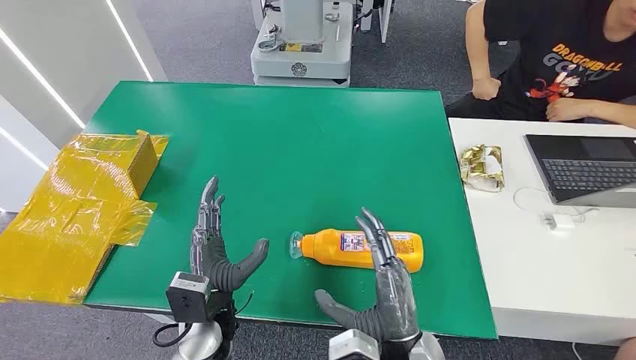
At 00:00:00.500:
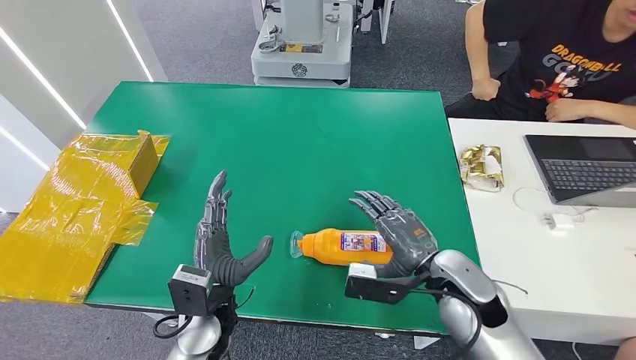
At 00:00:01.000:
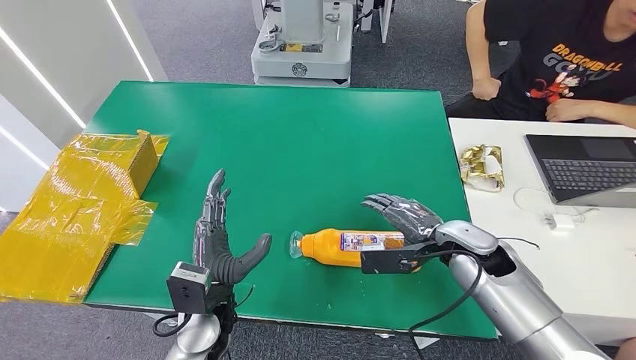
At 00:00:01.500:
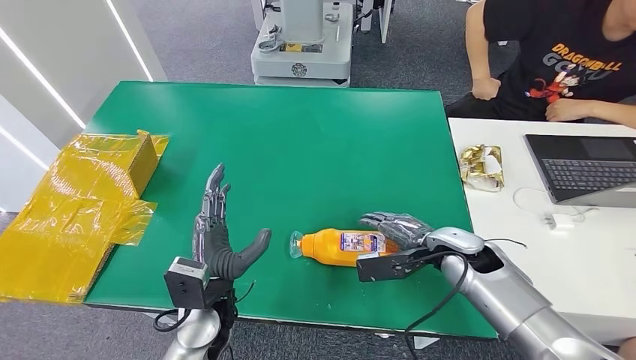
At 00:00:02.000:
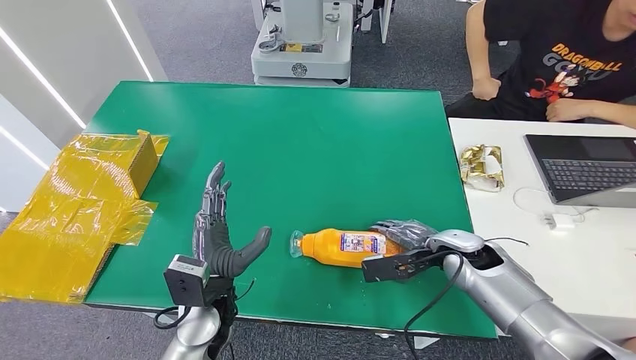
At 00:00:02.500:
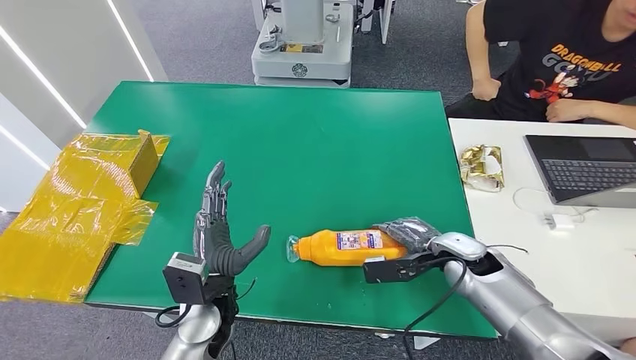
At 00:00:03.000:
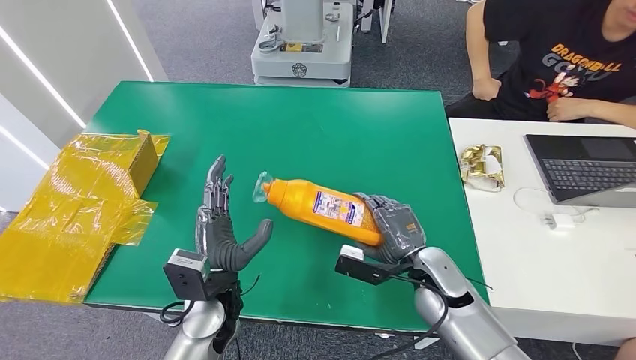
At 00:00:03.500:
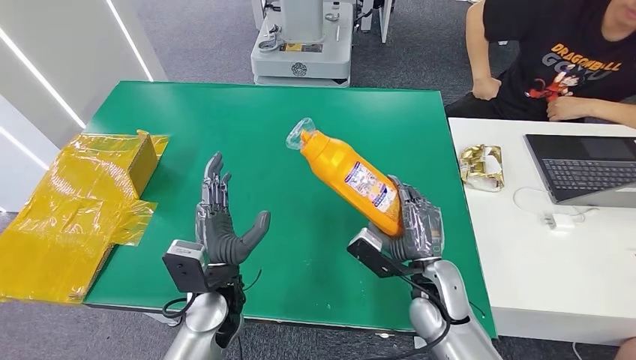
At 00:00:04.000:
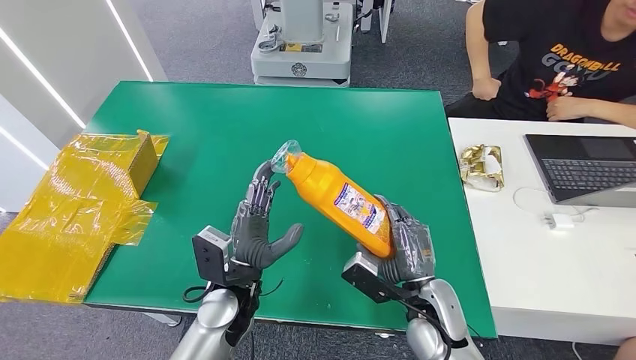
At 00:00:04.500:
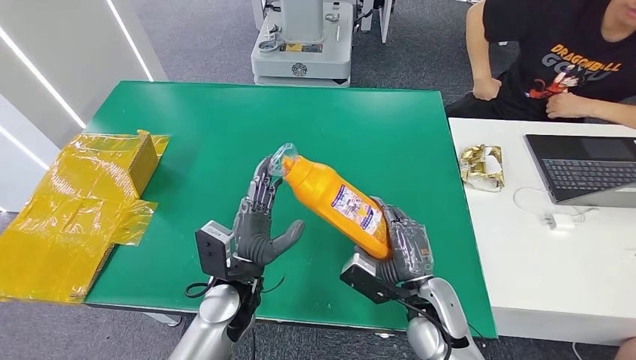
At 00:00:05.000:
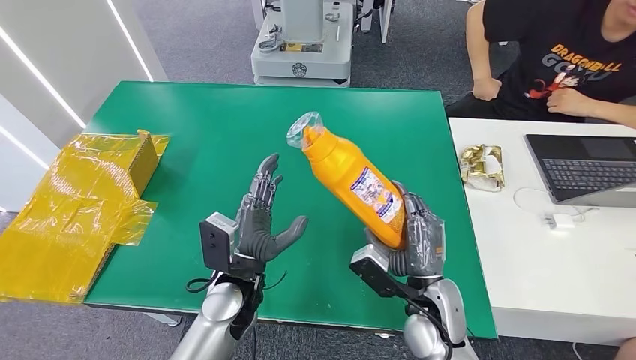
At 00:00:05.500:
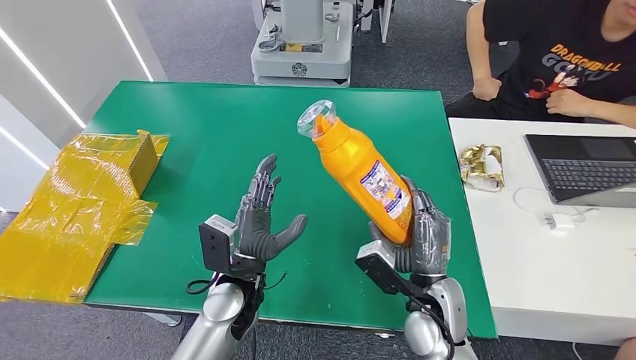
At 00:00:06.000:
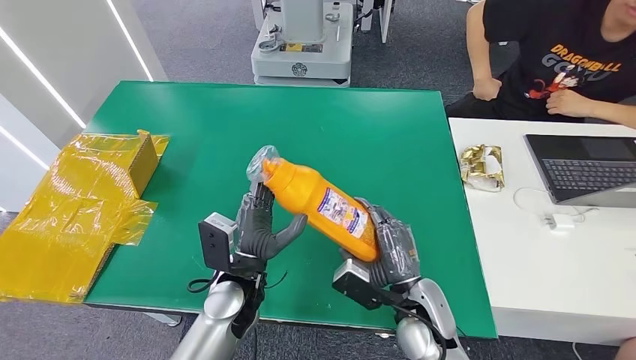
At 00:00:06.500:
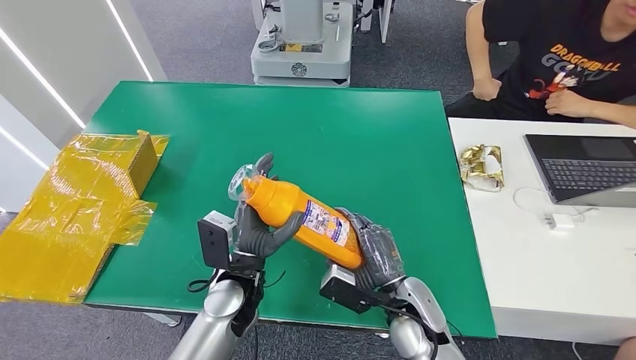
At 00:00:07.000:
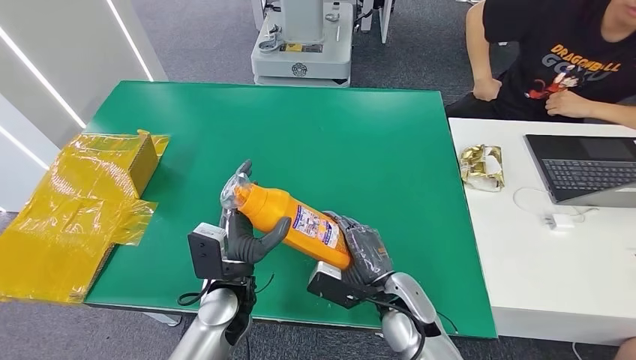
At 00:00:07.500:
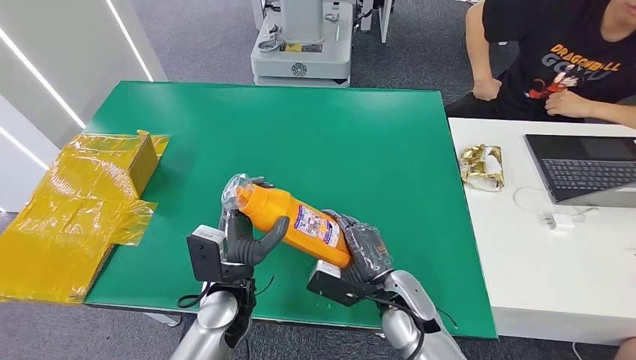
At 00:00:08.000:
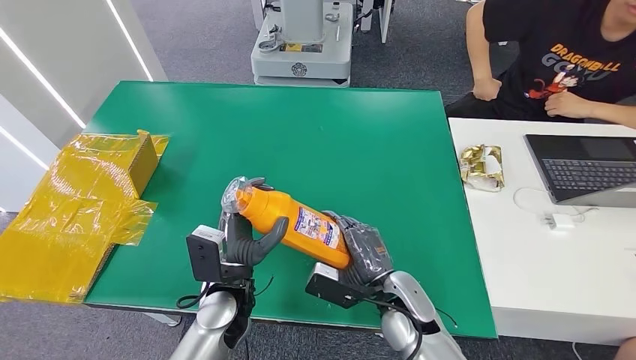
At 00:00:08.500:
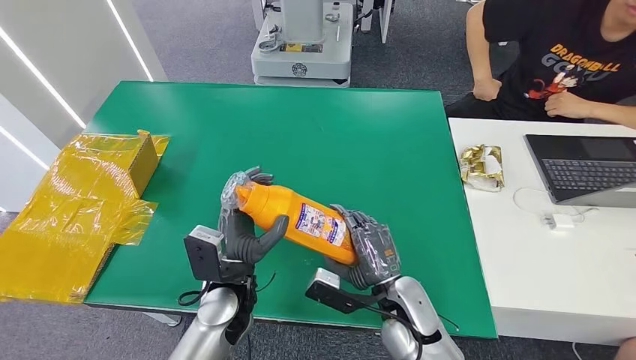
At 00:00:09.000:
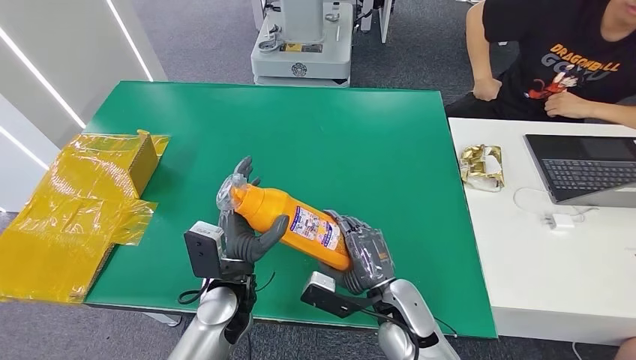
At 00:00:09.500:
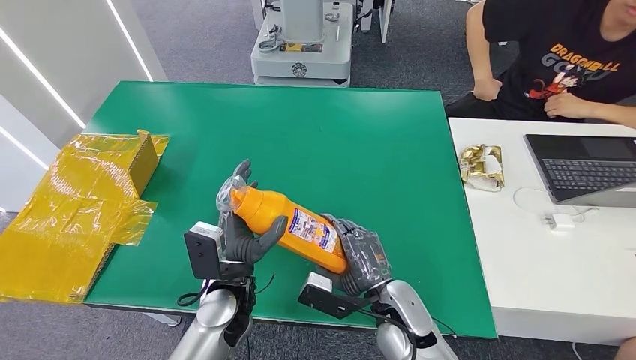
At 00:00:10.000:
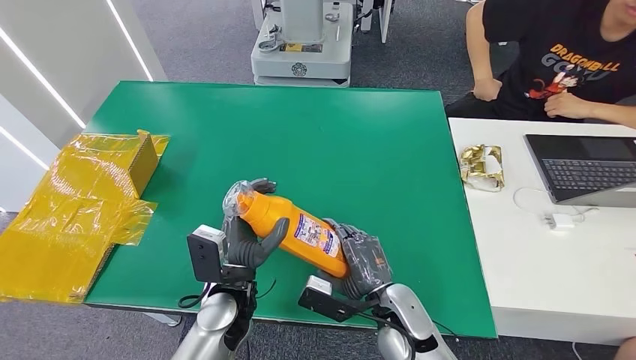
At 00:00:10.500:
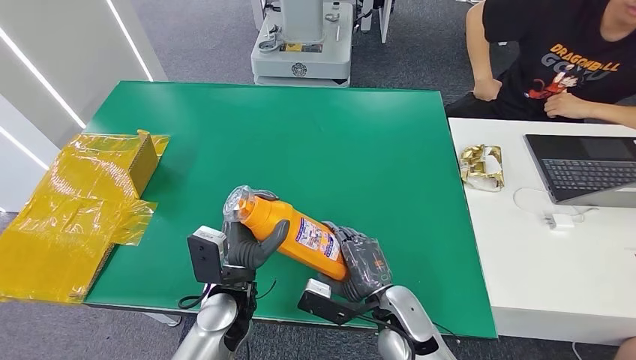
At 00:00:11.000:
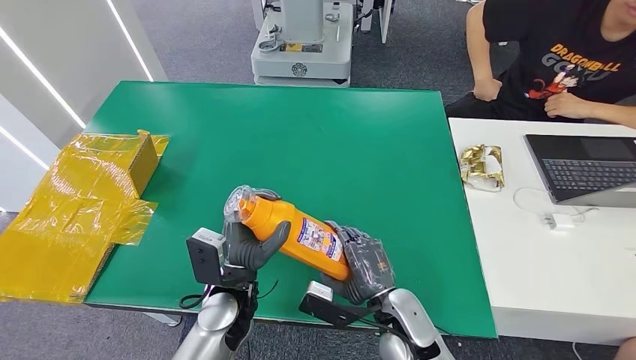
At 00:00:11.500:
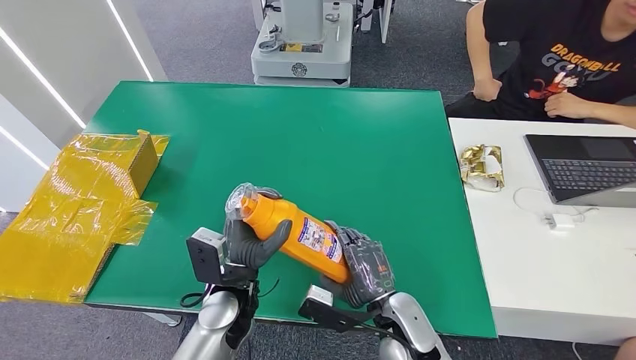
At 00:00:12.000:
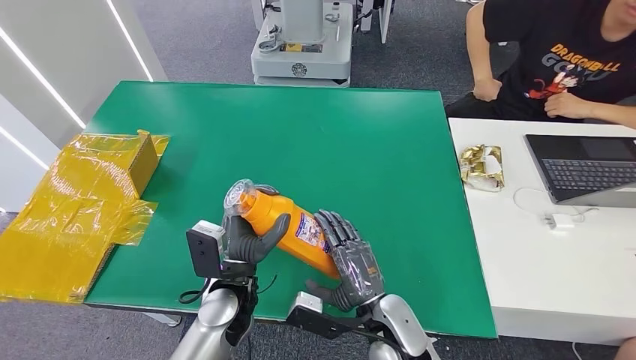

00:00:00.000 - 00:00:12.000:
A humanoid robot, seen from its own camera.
Step, 00:00:00.000 - 00:00:03.500: Pick up the bottle from the table.
00:00:02.000 - 00:00:04.000: The right hand heads backward and to the left, covering about 15 cm.
00:00:04.000 - 00:00:10.000: There are only small adjustments of the hands.
00:00:10.000 - 00:00:12.000: The hands make only small movements.

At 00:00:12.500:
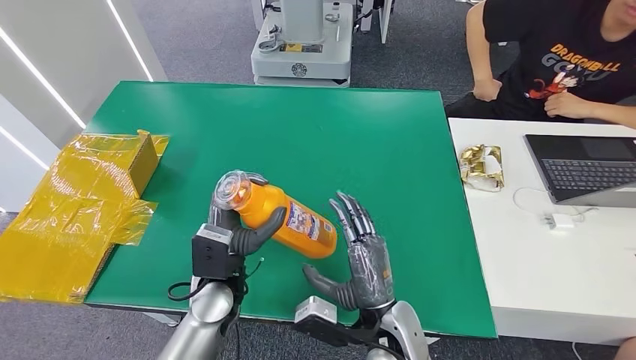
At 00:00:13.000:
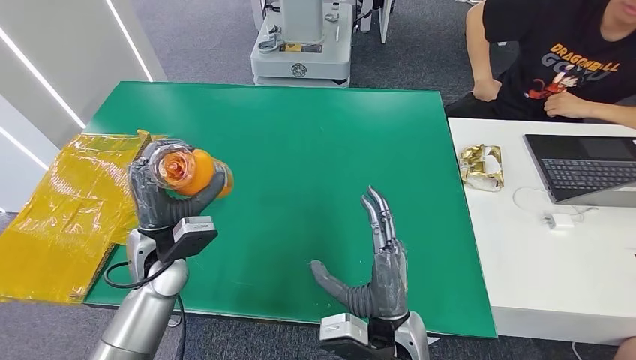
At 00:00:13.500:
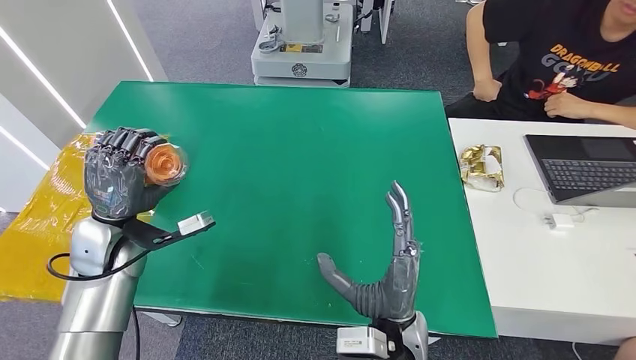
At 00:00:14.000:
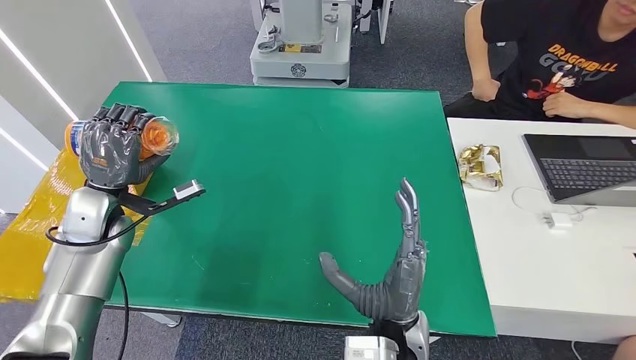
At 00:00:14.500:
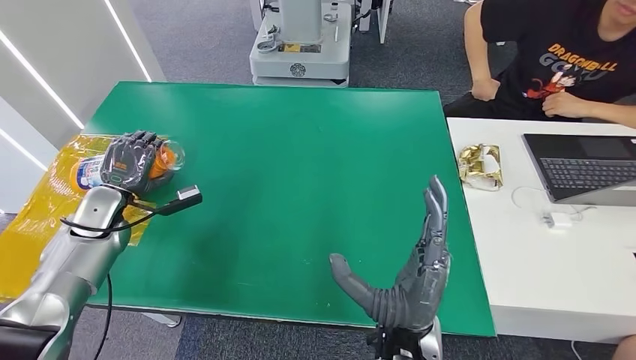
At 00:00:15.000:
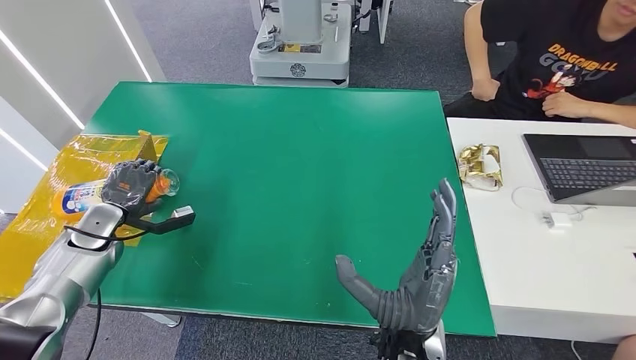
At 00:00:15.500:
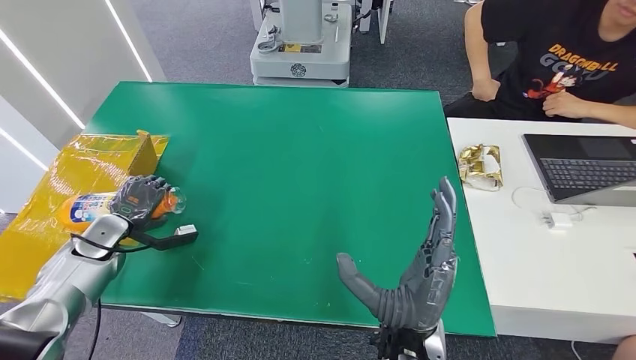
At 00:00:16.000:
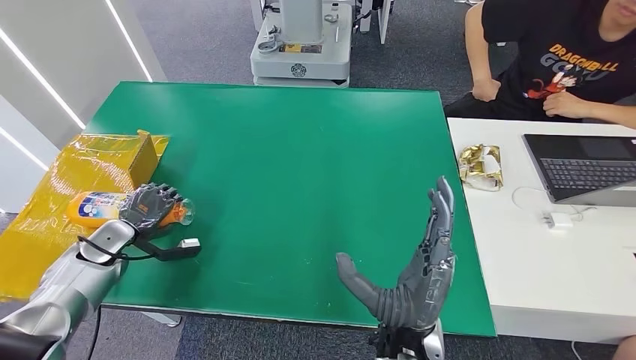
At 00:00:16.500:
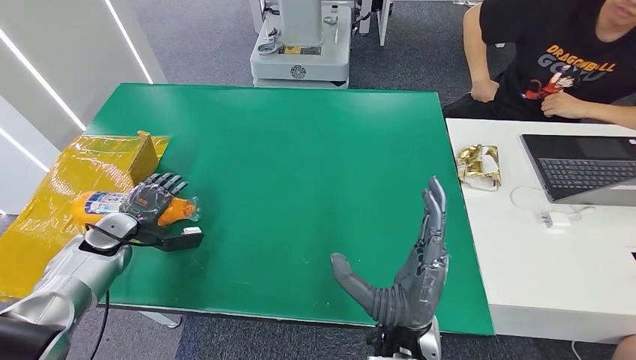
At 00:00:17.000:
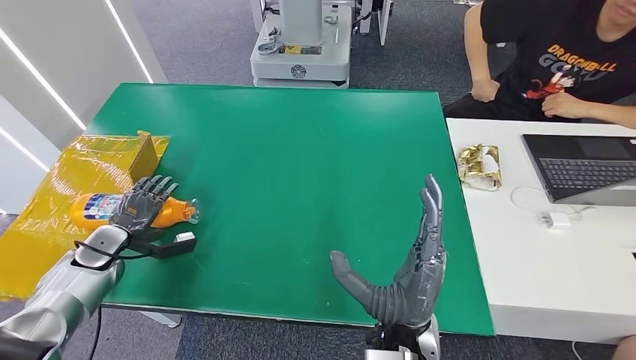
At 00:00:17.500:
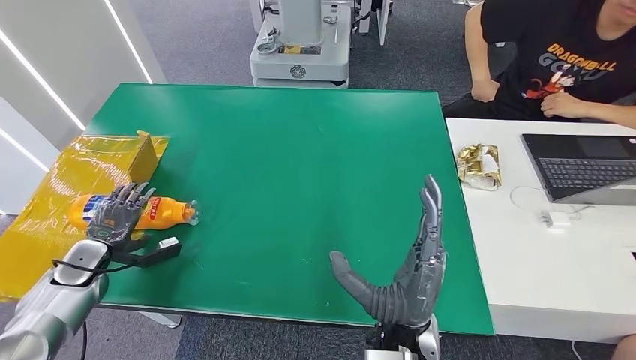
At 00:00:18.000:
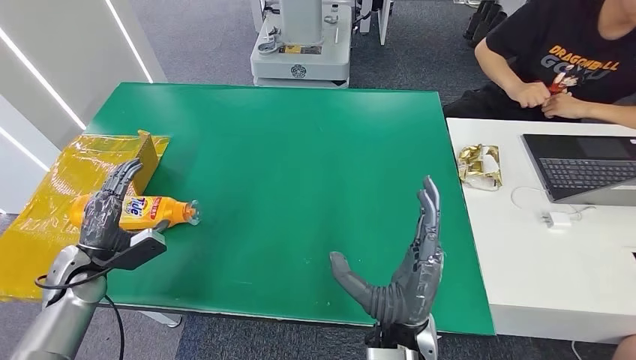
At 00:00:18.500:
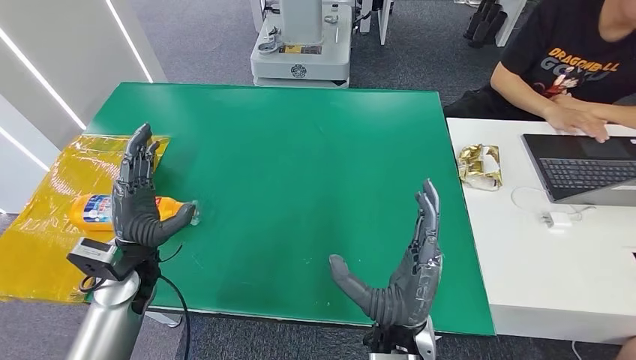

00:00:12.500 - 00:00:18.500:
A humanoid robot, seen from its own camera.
Step, 00:00:12.500 - 00:00:18.500: Turn the bottle to the front side.
00:00:12.500 - 00:00:14.500: The right hand moves upward, approximately 5 cm, while the left hand goes about 30 cm to the left and forward.
00:00:14.500 - 00:00:16.500: The left hand shifts some 5 cm downward.
00:00:16.500 - 00:00:18.500: The left hand heads to the right, backward and upward, covering about 20 cm.
